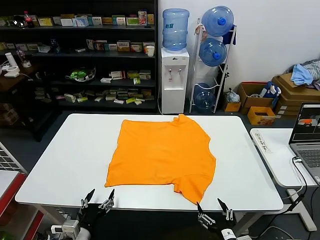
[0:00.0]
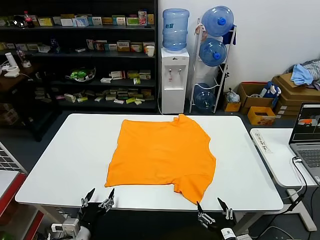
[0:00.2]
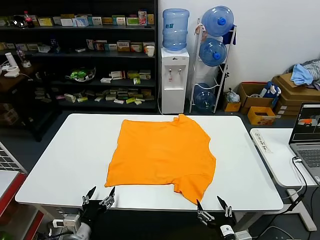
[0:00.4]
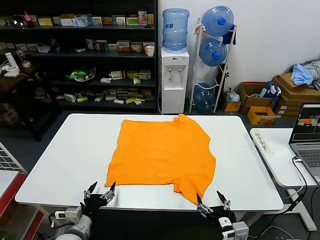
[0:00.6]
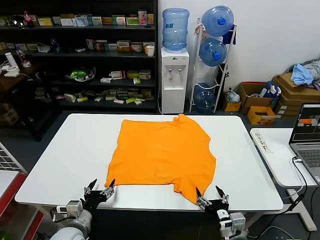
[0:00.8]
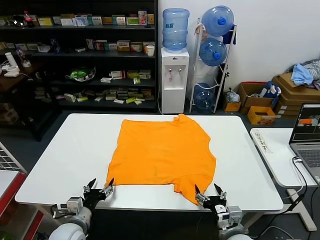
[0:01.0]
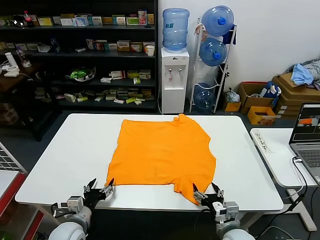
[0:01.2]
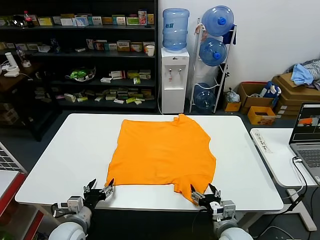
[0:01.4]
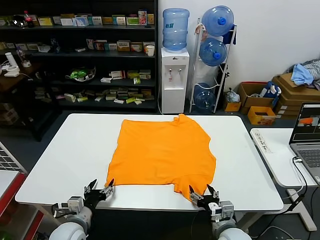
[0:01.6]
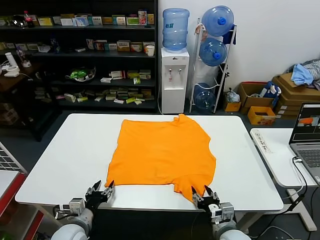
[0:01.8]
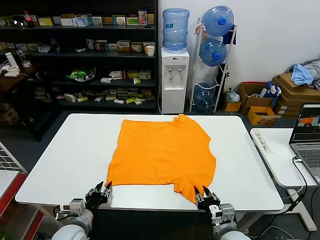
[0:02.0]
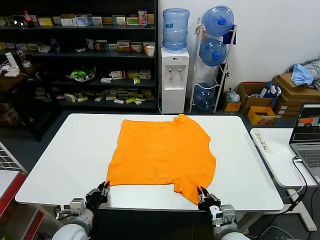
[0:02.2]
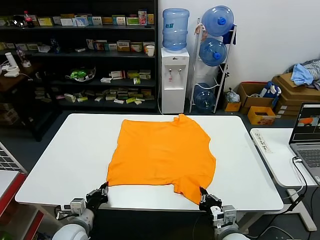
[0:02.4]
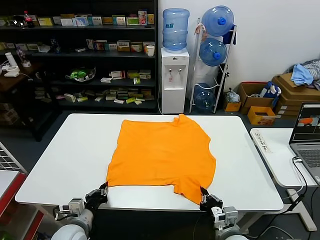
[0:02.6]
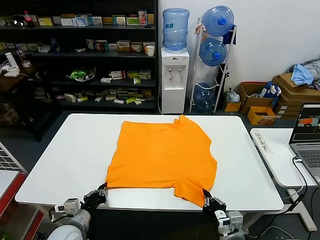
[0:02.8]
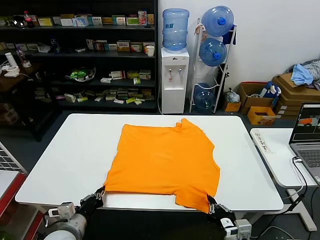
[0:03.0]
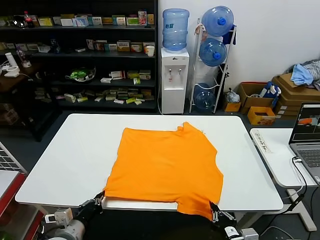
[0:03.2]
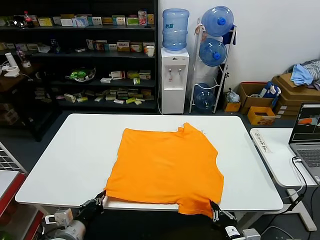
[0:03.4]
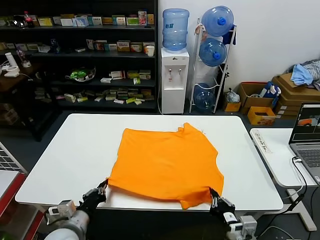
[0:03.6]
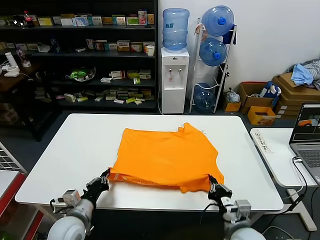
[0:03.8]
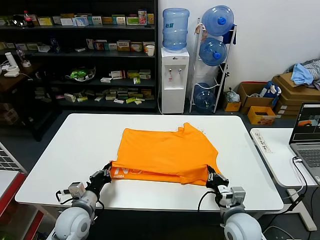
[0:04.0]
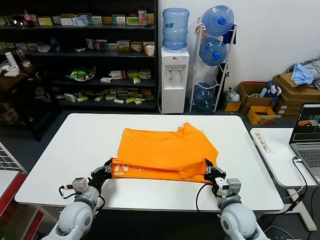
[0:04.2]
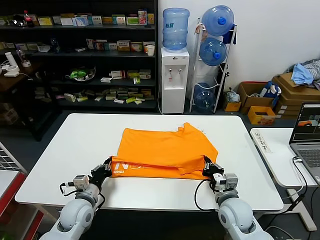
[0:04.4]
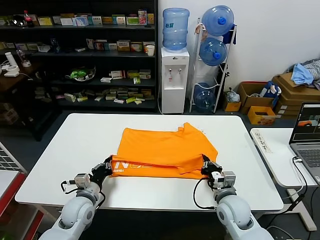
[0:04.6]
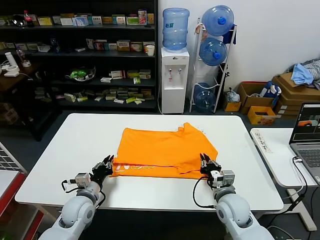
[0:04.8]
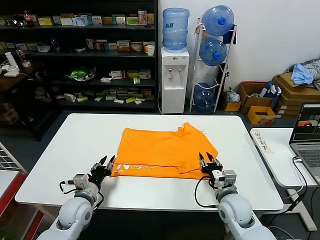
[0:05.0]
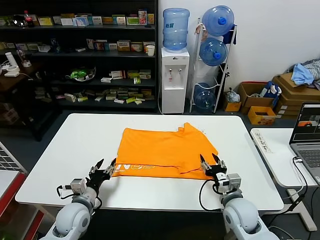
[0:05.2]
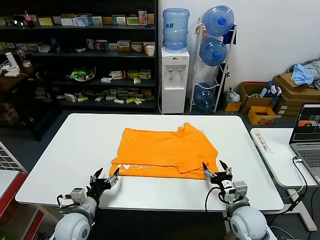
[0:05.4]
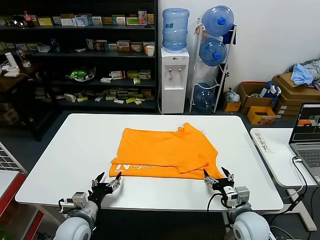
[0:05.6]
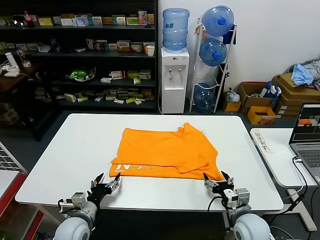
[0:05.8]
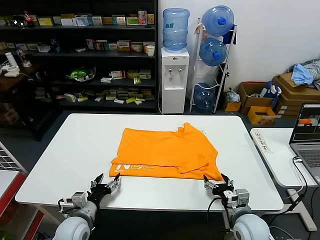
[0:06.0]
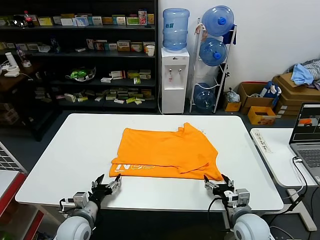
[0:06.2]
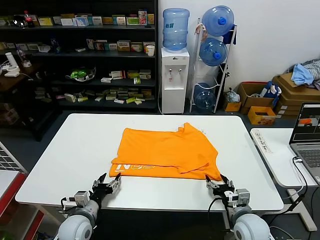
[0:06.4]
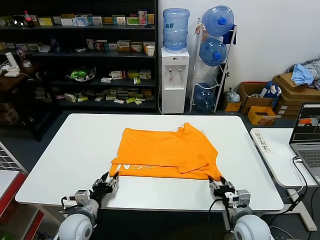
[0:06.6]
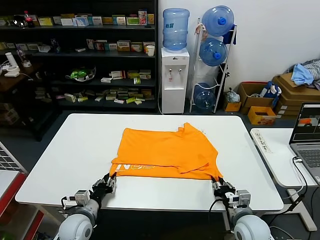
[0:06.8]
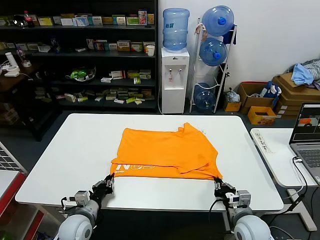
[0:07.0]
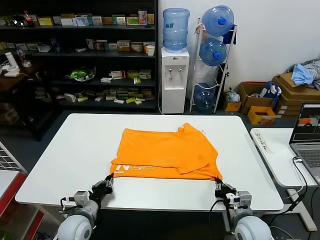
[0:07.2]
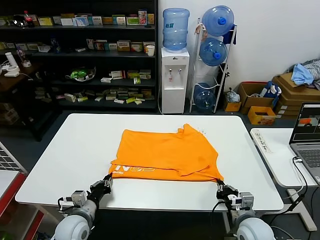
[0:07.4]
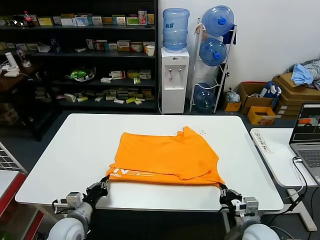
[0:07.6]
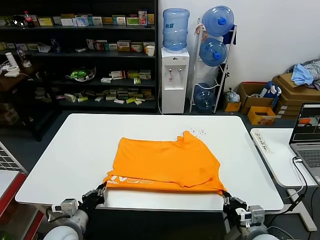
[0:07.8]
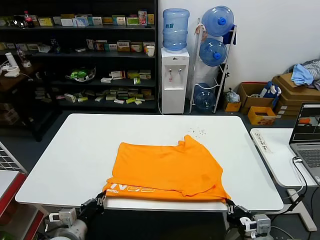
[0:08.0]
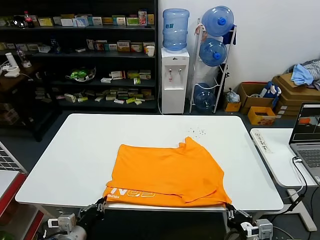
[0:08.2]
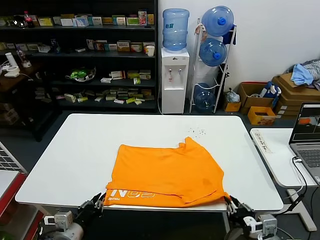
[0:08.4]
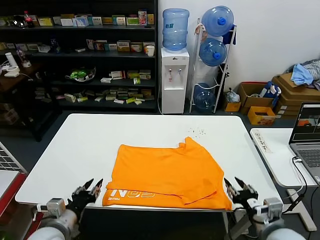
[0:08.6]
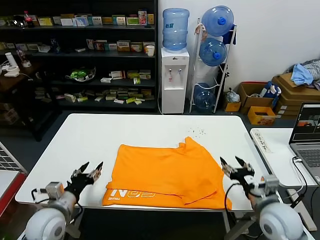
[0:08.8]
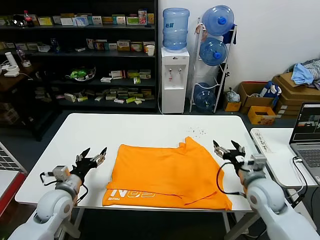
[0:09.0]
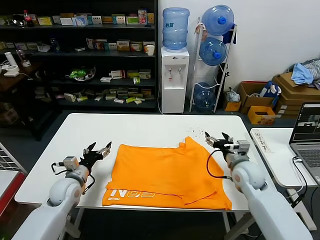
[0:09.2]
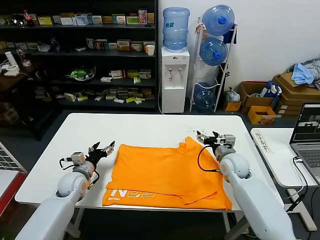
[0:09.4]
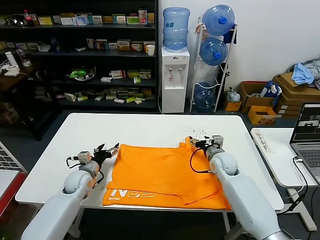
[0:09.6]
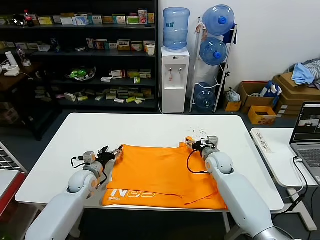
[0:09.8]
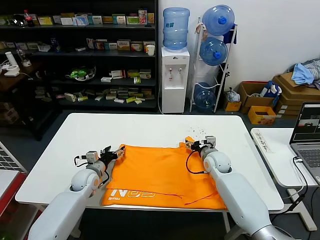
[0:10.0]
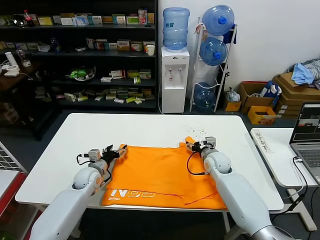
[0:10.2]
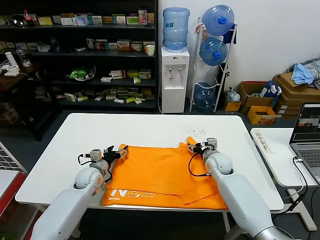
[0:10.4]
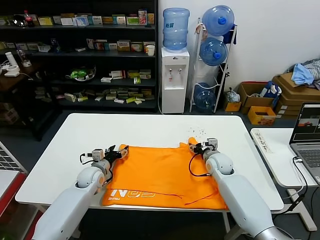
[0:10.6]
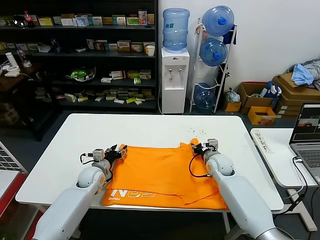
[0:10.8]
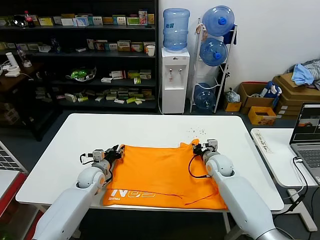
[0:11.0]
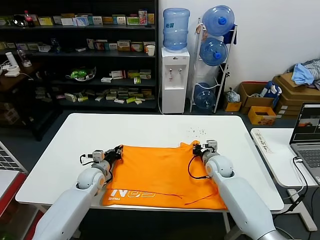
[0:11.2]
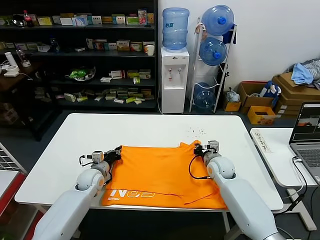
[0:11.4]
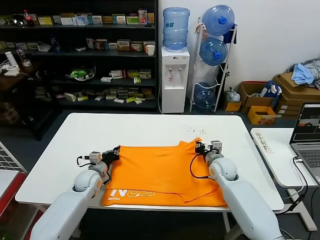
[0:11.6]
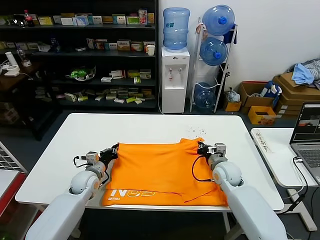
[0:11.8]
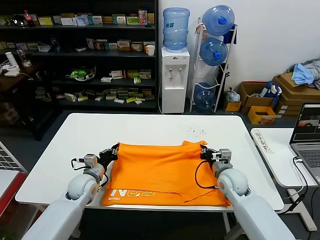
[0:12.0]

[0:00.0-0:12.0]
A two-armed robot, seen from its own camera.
Task of the whole recording: fold and organize the clothes.
Step, 0:00.0 to 0:02.6: use both grippers simultaneously to clamp the lower edge of the clothing fabric.
Step, 0:02.8 to 0:04.8: use both grippers to drag the lower edge of the fabric forward and fold it over the upper edge.
Step, 0:05.0 to 0:08.4: Drag the clothes downward with both gripper.
Step, 0:08.6 to 0:11.4: use both grippers simultaneously to clamp the upper edge of the clothing fabric.
0:01.6 to 0:03.0: The right gripper is displaced backward by roughly 10 cm, and closes its fingers. Meanwhile the left gripper closes its fingers.
0:03.0 to 0:04.4: The right gripper travels forward by roughly 15 cm. The left gripper goes about 10 cm forward.
0:04.4 to 0:06.0: The left gripper moves roughly 5 cm, and opens up; the right gripper moves about 5 cm, and opens its fingers.
0:06.0 to 0:07.6: The right gripper closes its fingers. Meanwhile the left gripper closes.
0:07.6 to 0:09.0: The right gripper is displaced forward and upward by approximately 15 cm, and opens up. The left gripper travels forward and upward by some 10 cm, and opens up.
0:09.0 to 0:10.4: The right gripper shifts roughly 15 cm forward, downward and to the left. The left gripper moves forward and downward, roughly 15 cm.
0:10.4 to 0:12.0: The right gripper travels backward by about 10 cm, and closes up, while the left gripper closes up.

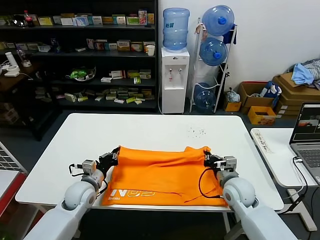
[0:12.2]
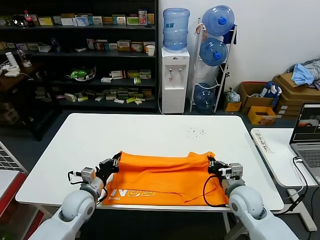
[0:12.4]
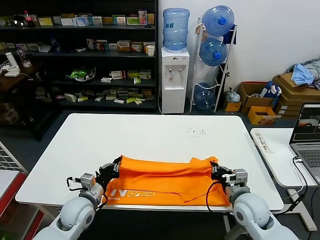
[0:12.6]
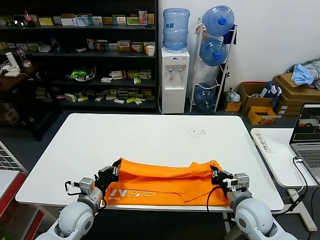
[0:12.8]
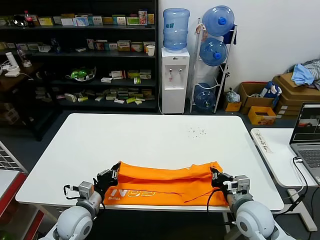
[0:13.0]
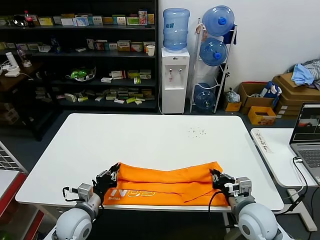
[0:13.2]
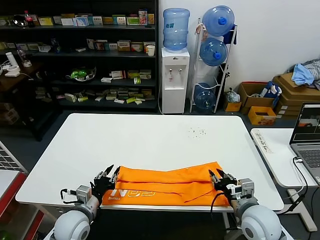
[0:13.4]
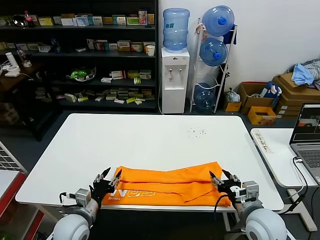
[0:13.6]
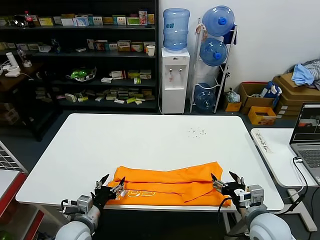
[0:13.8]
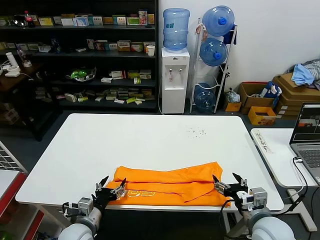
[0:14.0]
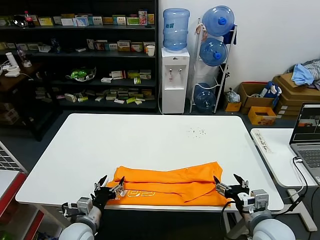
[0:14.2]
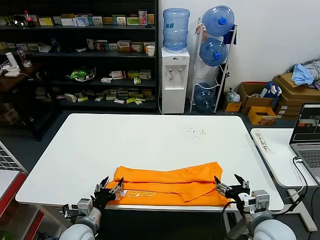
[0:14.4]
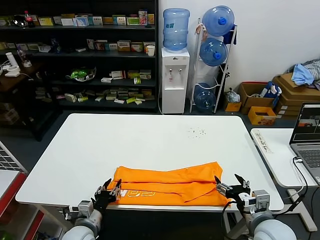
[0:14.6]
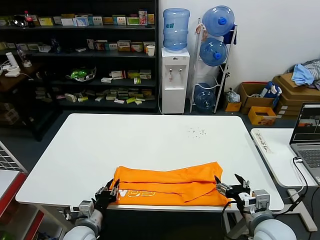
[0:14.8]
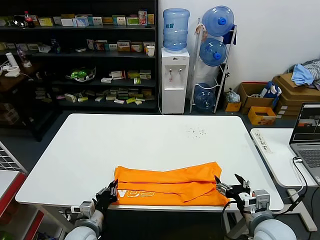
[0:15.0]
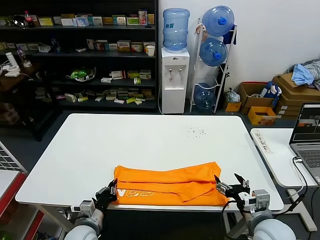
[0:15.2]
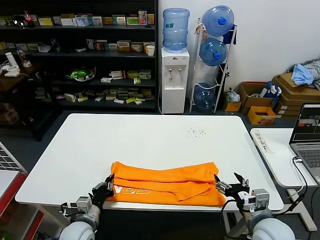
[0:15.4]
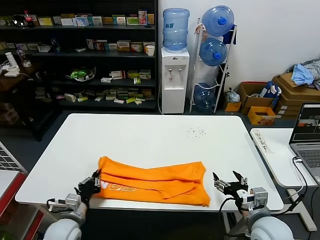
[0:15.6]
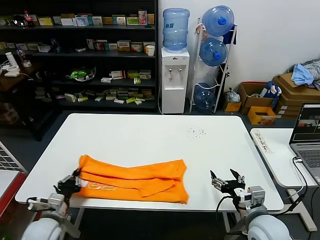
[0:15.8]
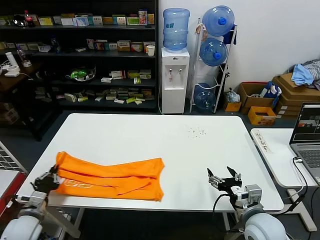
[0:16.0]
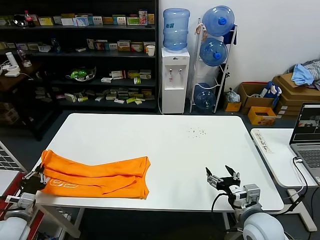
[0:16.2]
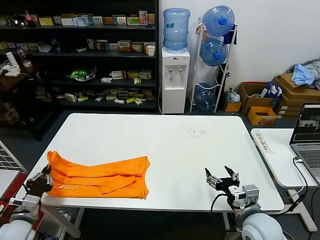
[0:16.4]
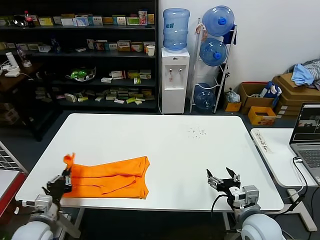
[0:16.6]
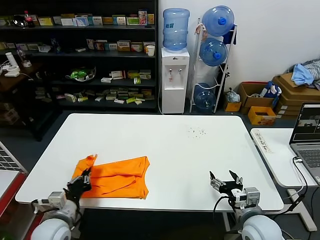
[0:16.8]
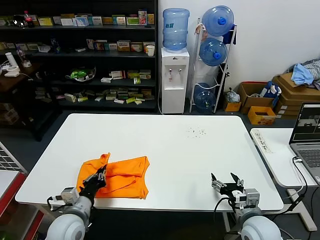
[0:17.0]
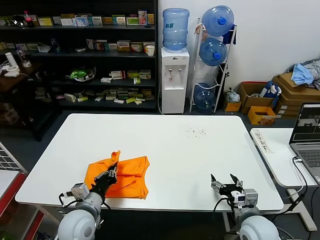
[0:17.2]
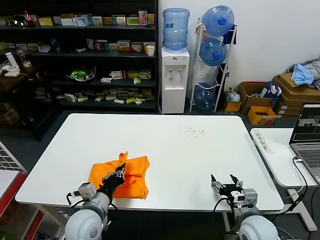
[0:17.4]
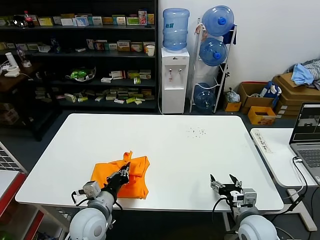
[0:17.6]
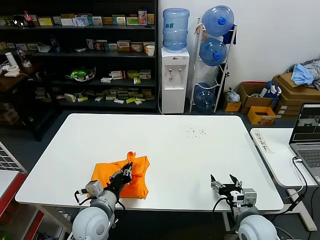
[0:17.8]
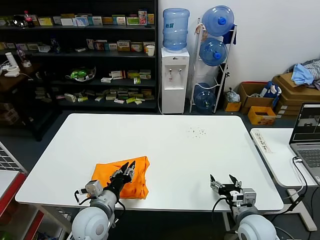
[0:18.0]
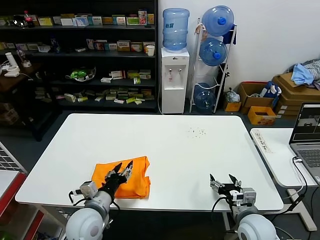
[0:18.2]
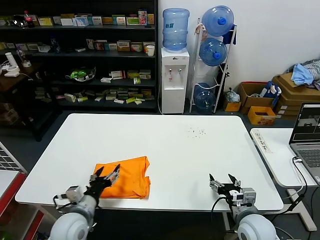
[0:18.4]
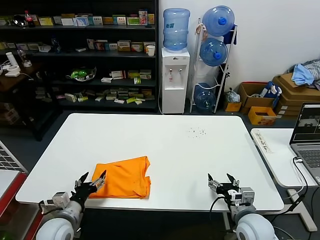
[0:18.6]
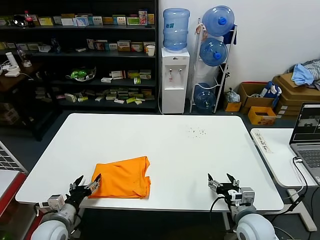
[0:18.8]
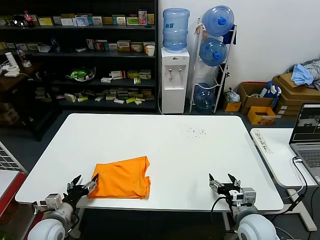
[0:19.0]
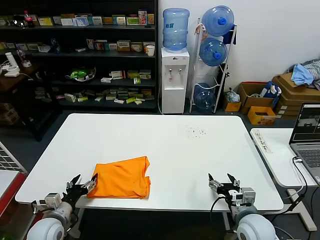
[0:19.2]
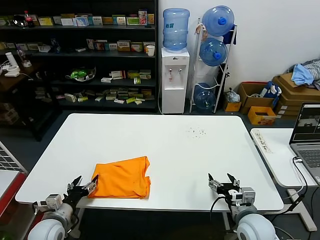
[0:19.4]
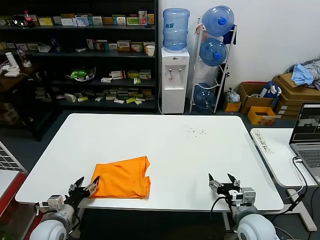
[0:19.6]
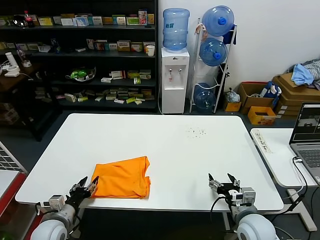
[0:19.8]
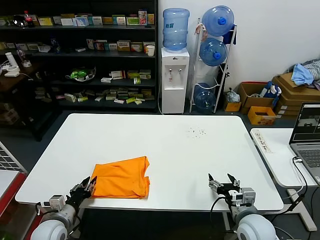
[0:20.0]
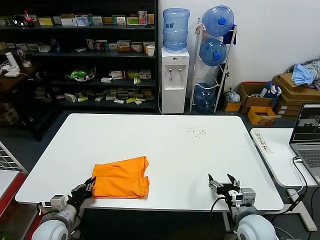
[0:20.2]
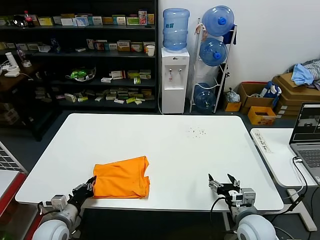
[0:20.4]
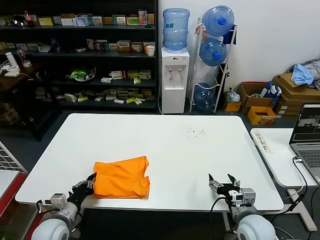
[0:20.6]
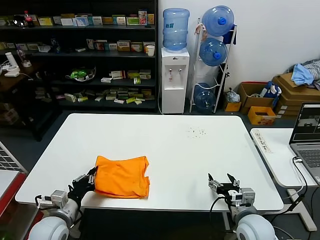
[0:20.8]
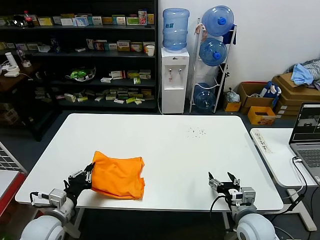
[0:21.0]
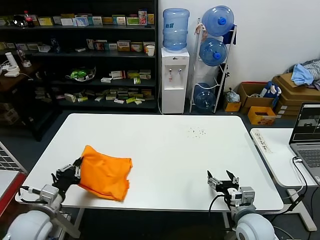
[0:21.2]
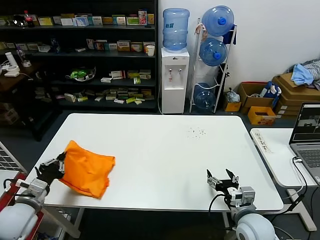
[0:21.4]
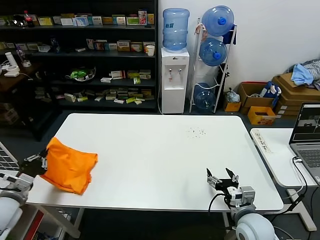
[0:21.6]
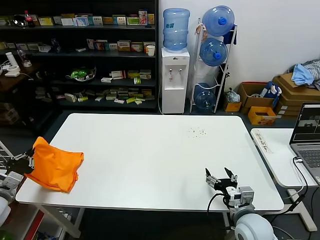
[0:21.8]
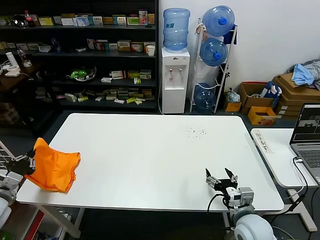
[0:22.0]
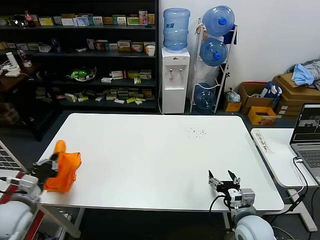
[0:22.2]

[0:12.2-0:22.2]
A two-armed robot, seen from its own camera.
Task of the whole recording: fold and organize the clothes.
Step, 0:12.2 to 0:13.4: use both grippers to drag the upper edge of the fabric backward and fold it over the lower edge.
Step, 0:13.6 to 0:15.2: use the left gripper to clamp the left edge of the fabric.
Step, 0:15.4 to 0:18.0: use the left gripper to drag the left edge of the fabric to the left and folds it over the right edge.
0:12.2 to 0:13.6: The two grippers go about 10 cm backward. The right gripper opens. The left gripper opens its fingers.
0:13.6 to 0:15.0: The left gripper travels downward by about 5 cm, and closes up.
0:15.0 to 0:16.4: The left gripper moves to the left, about 20 cm.
0:16.4 to 0:18.0: The left gripper heads to the right, covering roughly 25 cm.
0:18.0 to 0:19.4: The left gripper shifts some 20 cm to the left and downward, and opens its fingers.
0:19.4 to 0:20.8: The left gripper closes.
0:20.8 to 0:22.2: The left gripper goes about 15 cm to the left and upward.
